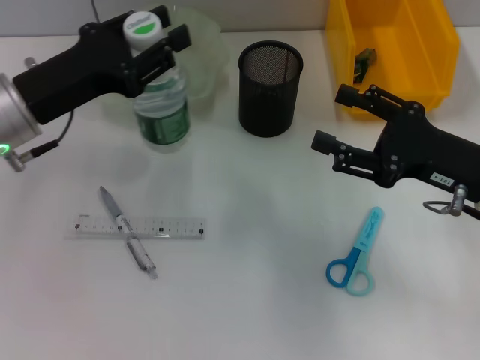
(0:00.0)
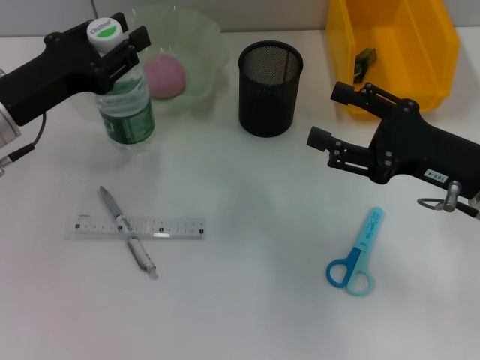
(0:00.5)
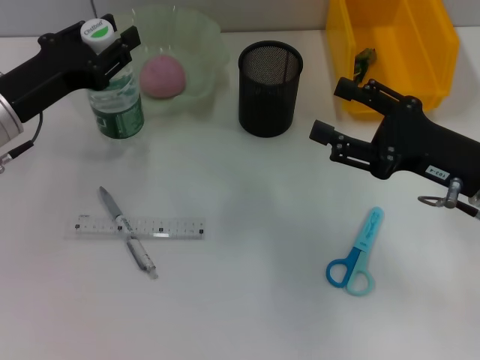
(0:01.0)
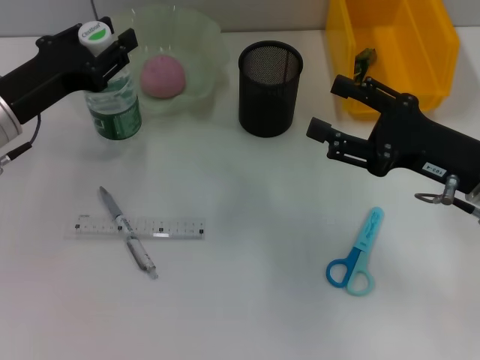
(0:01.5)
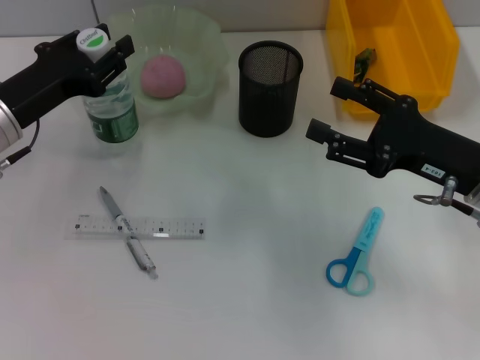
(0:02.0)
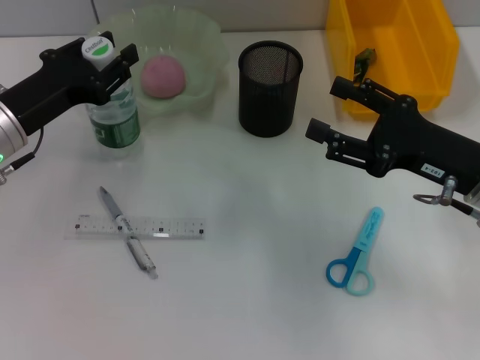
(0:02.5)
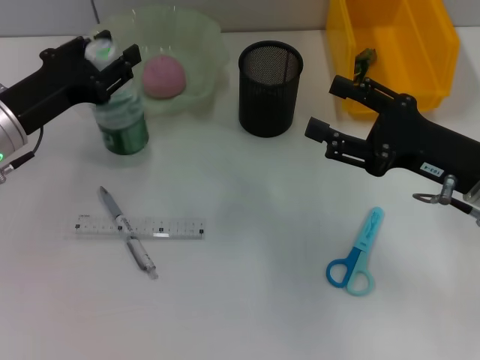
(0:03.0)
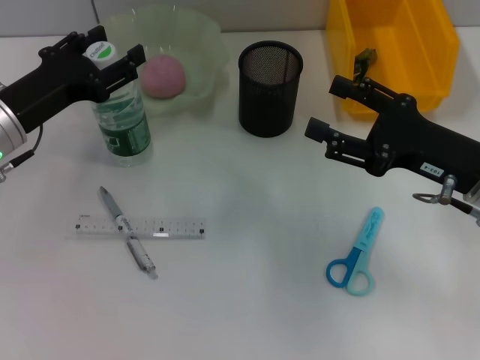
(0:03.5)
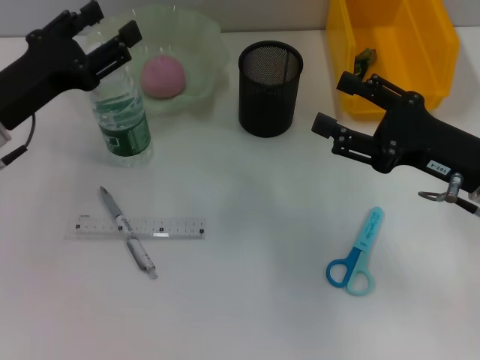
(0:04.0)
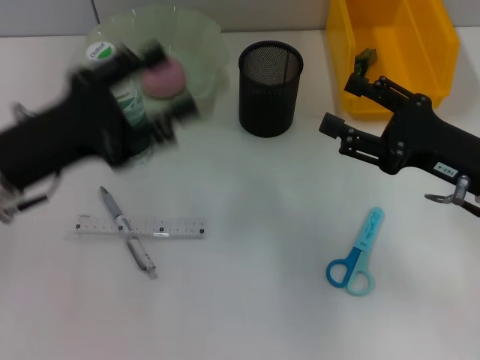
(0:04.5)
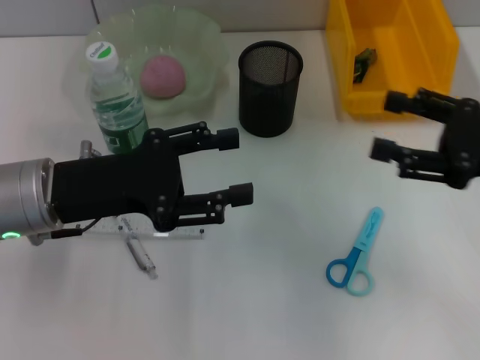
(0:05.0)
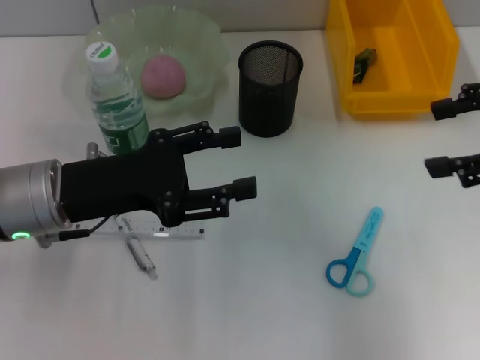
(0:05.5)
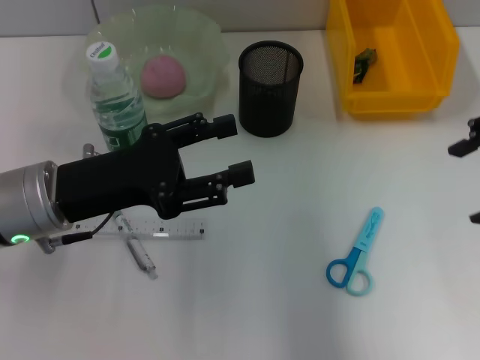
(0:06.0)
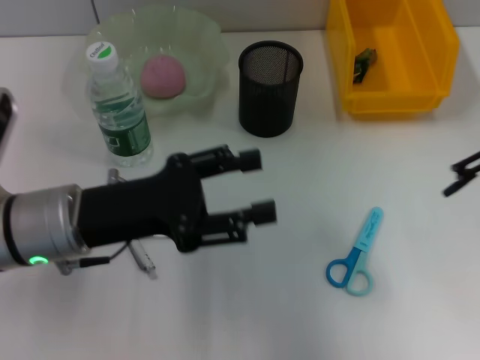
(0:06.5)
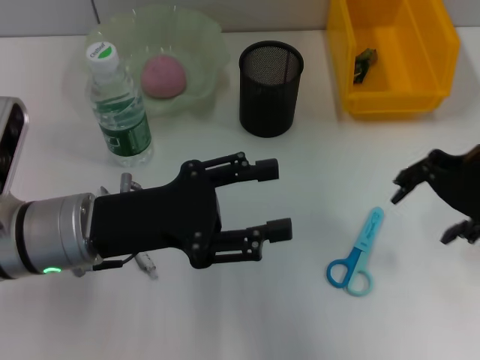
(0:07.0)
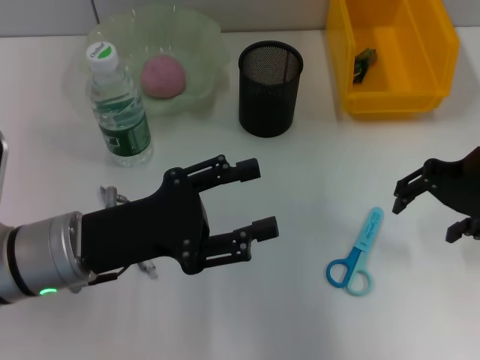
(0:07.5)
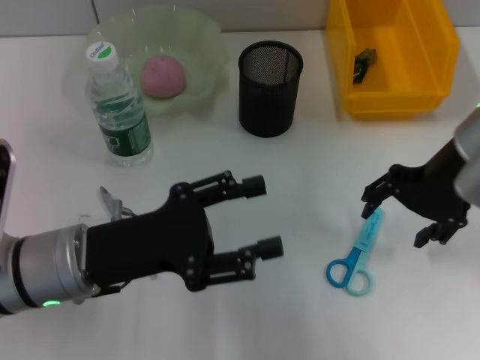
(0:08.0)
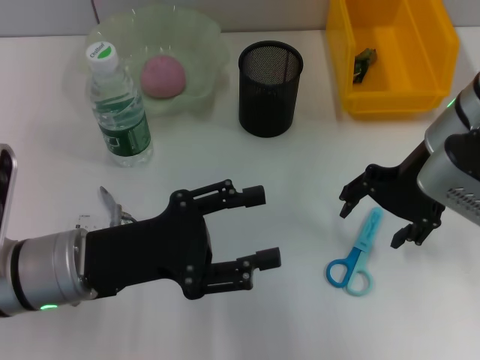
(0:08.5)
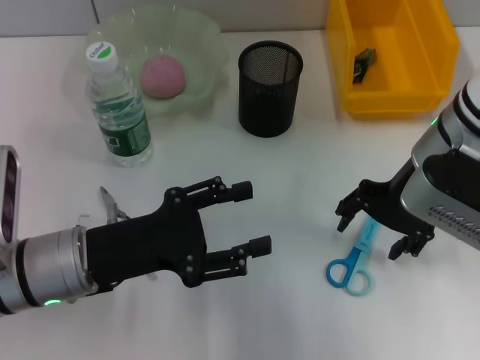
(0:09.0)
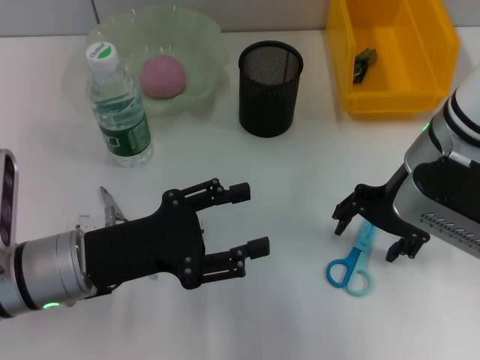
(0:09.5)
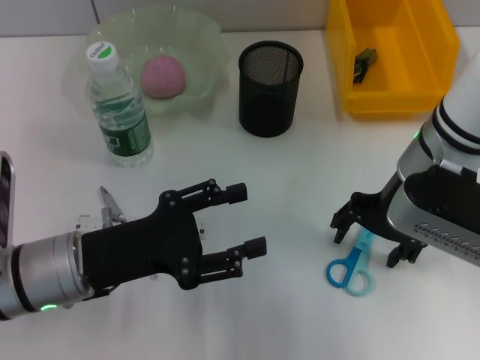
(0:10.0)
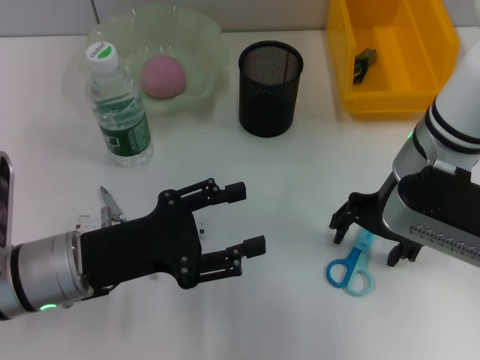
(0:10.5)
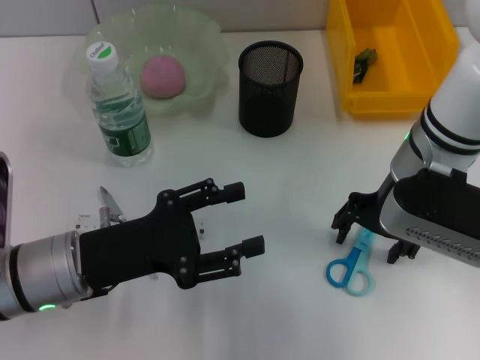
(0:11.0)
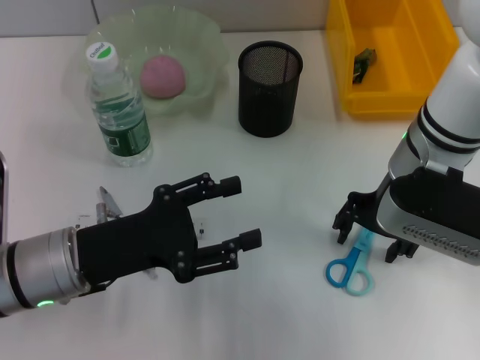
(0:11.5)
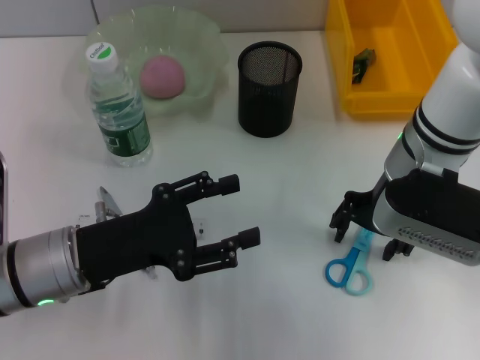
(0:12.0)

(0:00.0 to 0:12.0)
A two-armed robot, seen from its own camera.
Step, 0:00.0 - 0:03.0: Place the water bottle on the table with the left hand.
0:00.0 - 0:02.0: The grippers move only a little.
0:02.0 - 0:04.0: The left gripper opens its fingers.
0:04.0 - 0:06.0: The right gripper goes some 20 cm upward. The left gripper shifts roughly 5 cm to the right.
0:06.0 - 0:08.0: The right gripper goes about 15 cm downward and to the left. The left gripper shifts by about 5 cm.
0:08.0 - 0:10.0: The right gripper changes place by roughly 5 cm.
0:10.0 - 0:12.0: Both grippers stay about where they are.

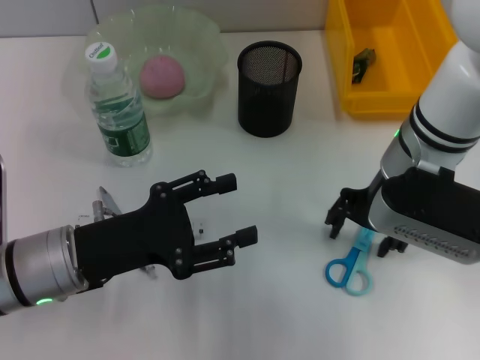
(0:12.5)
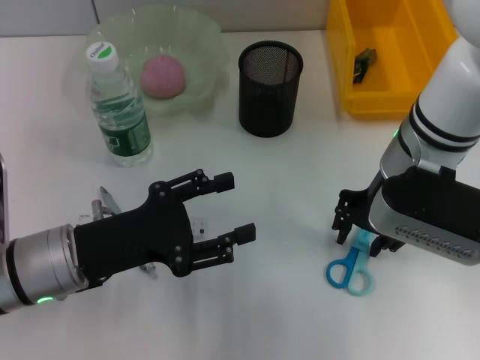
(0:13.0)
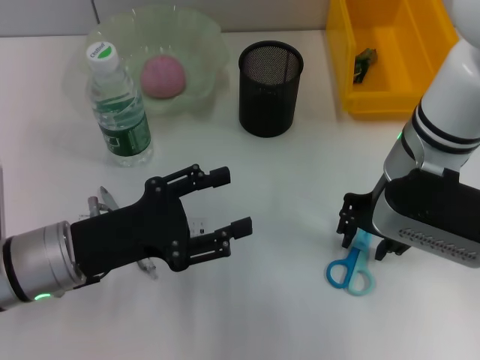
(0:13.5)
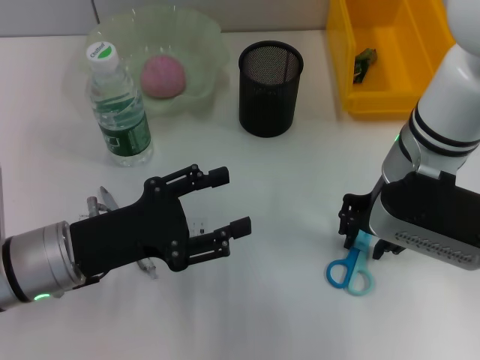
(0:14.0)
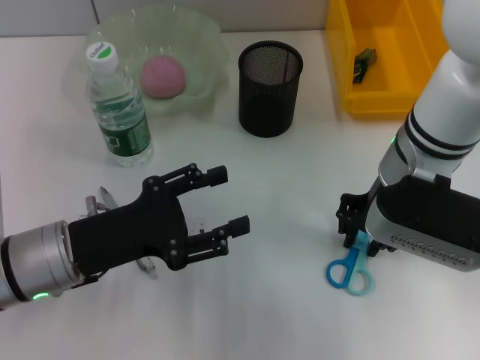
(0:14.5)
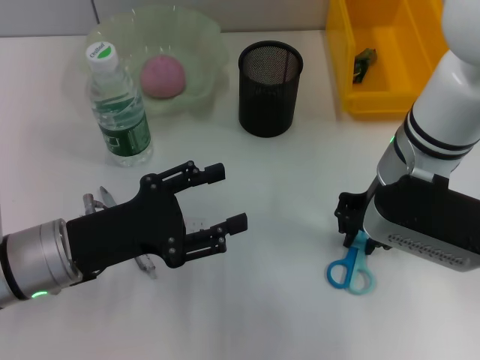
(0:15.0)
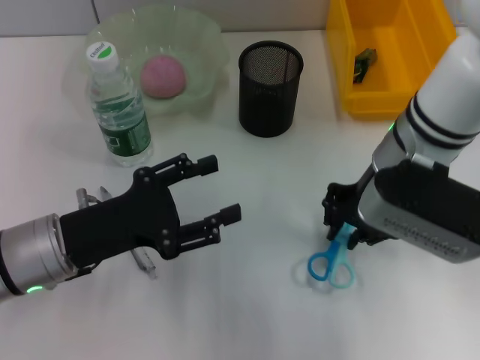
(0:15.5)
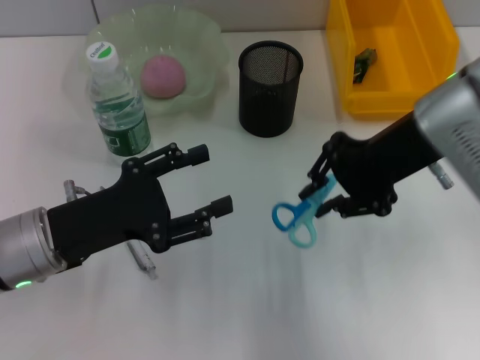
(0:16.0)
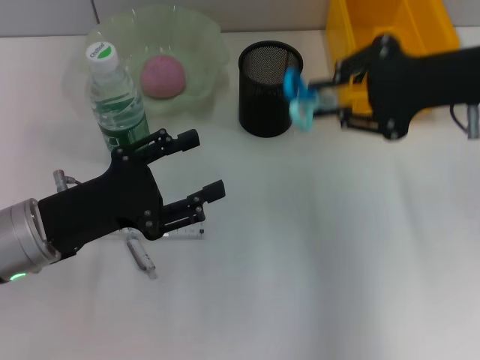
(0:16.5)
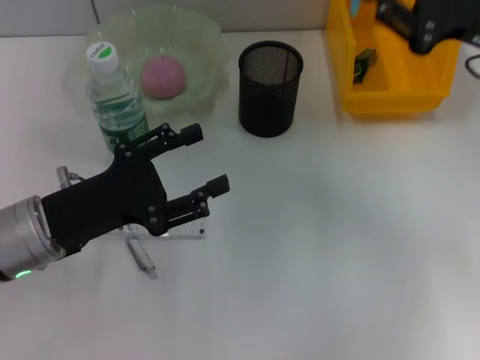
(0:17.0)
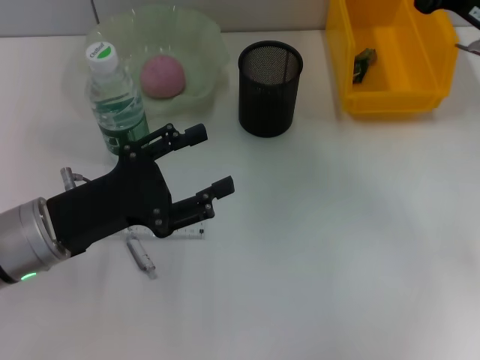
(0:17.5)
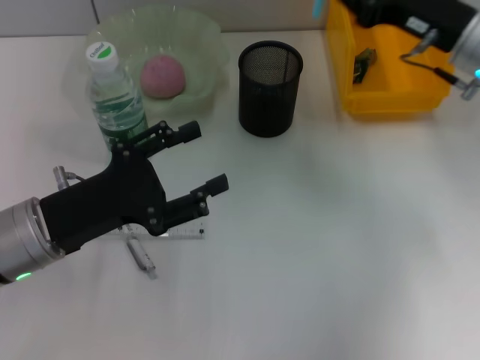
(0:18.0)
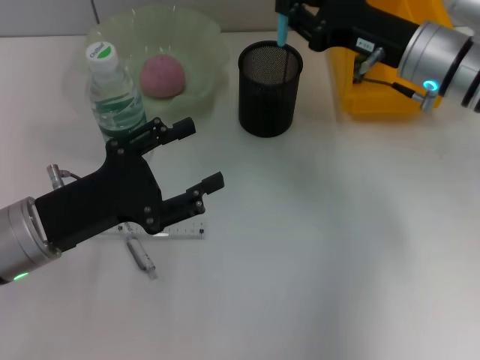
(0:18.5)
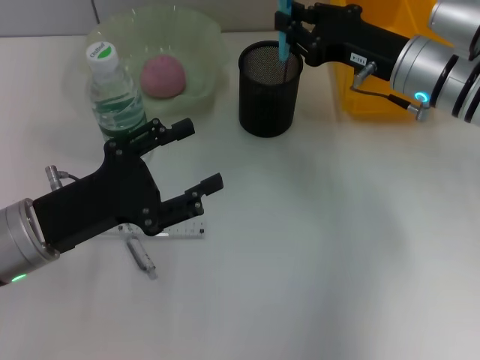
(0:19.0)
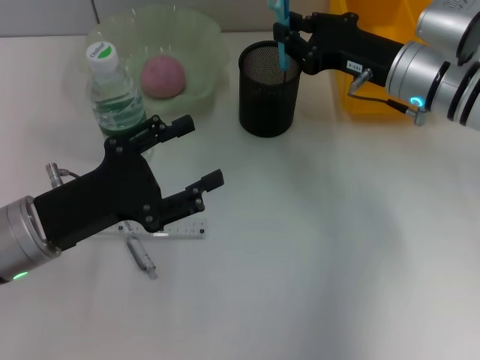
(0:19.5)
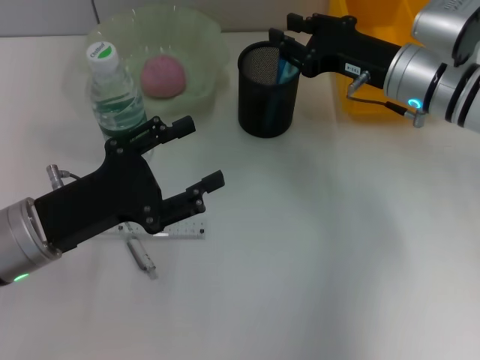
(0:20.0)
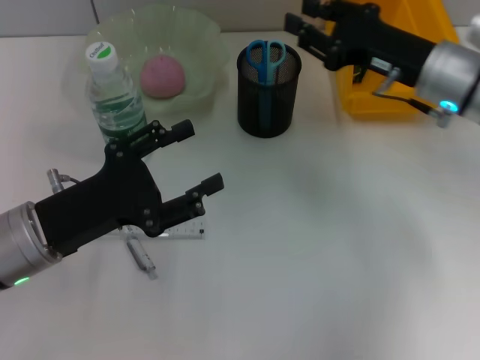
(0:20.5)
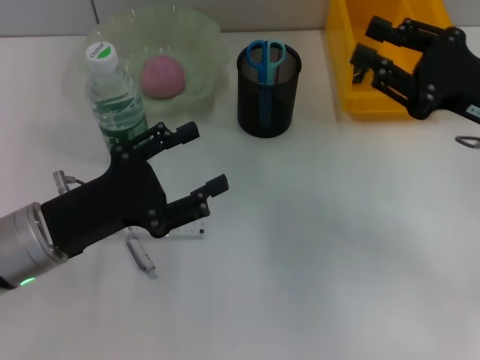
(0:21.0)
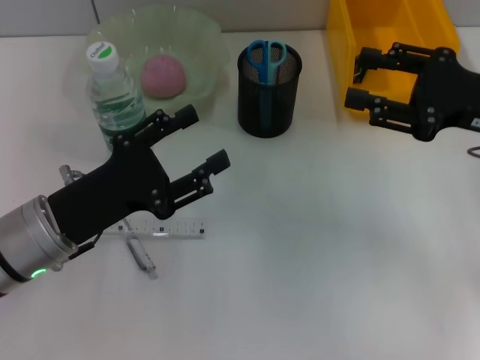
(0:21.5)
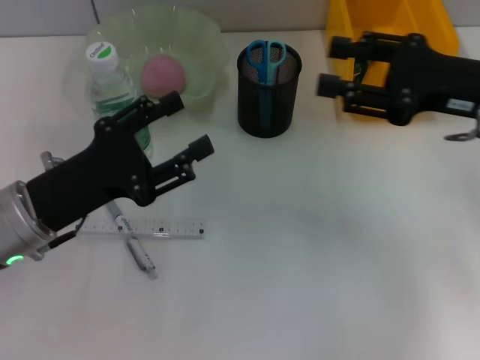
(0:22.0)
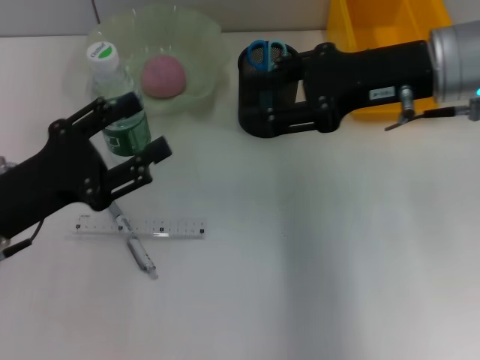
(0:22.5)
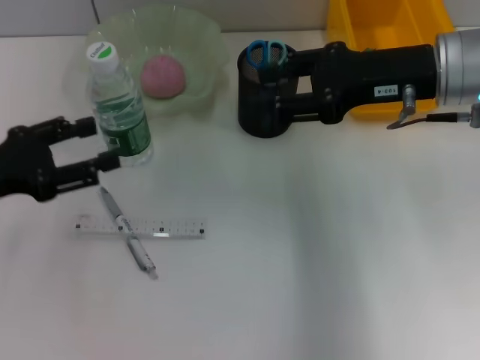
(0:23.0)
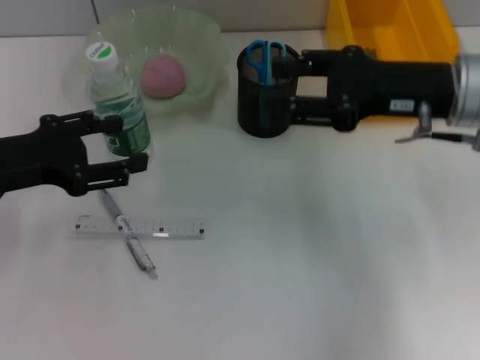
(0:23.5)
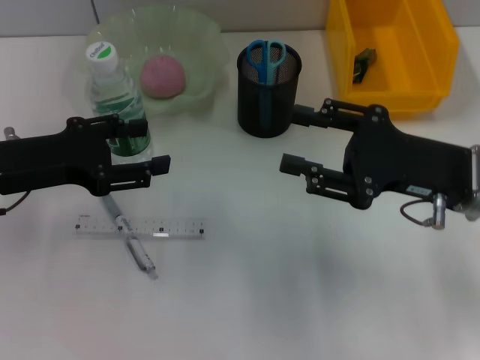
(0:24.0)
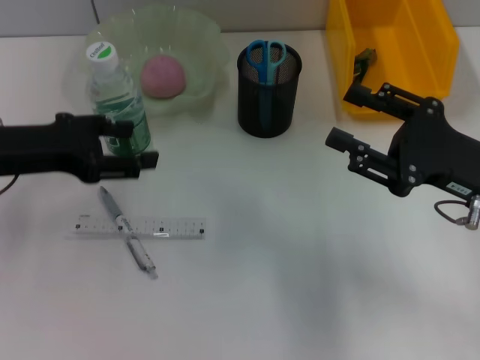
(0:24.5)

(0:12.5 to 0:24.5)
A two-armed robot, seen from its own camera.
Step, 0:12.5 - 0:14.5: Grab the blue scissors with the right hand.
Step, 0:15.0 - 0:20.0: Place the blue scissors into the pen holder with the right hand.
0:12.5 - 0:14.5: The right gripper closes up.
0:14.5 - 0:16.5: The right gripper is displaced to the right and upward by approximately 10 cm.
0:16.5 - 0:18.5: The right gripper goes roughly 10 cm downward and forward.
0:18.5 - 0:20.5: The grippers move only a little.
0:20.5 - 0:22.5: The right gripper heads upward, covering roughly 10 cm, and goes to the right and returns, about 5 cm each way.
0:22.5 - 0:24.5: The right gripper moves downward, backward and to the right, approximately 15 cm; the left gripper travels upward and forward by about 10 cm.

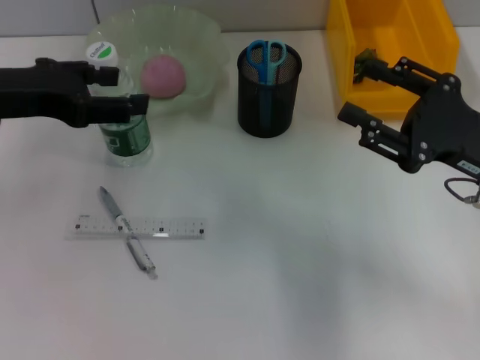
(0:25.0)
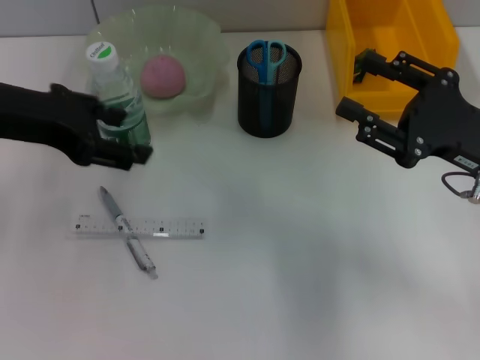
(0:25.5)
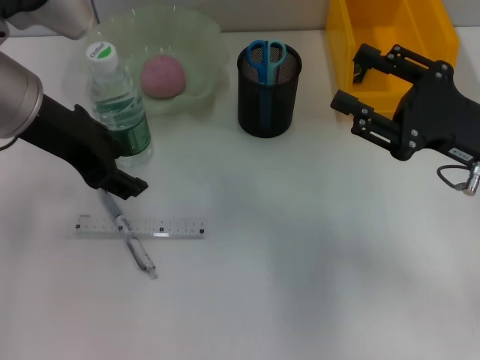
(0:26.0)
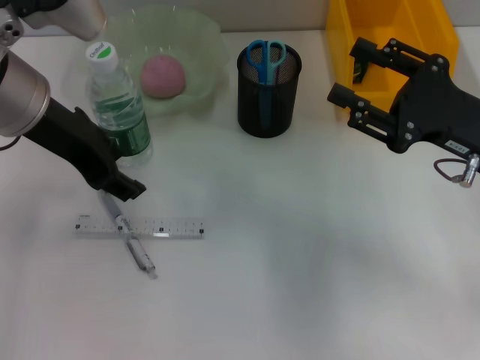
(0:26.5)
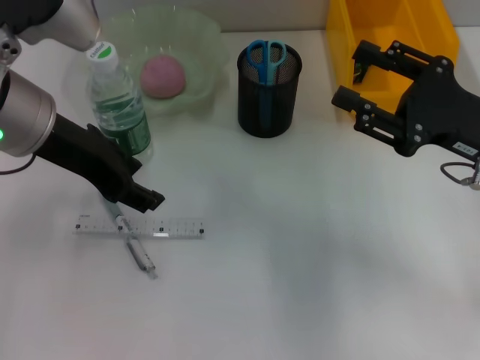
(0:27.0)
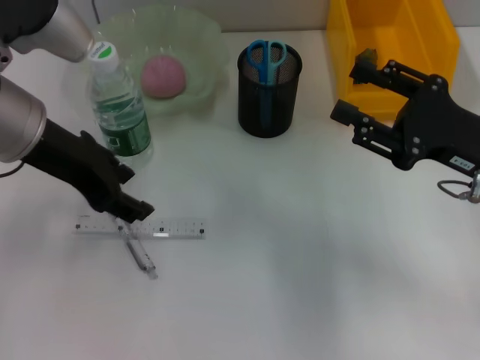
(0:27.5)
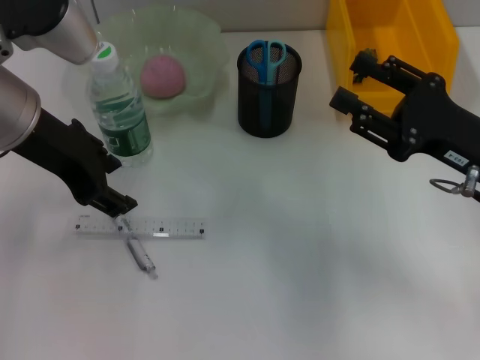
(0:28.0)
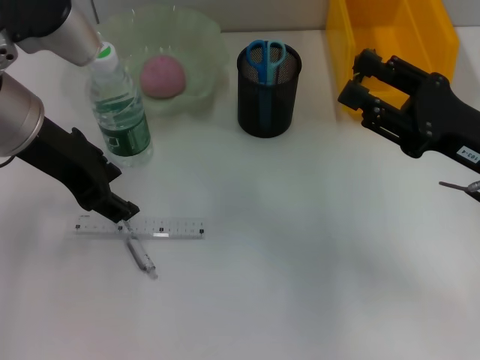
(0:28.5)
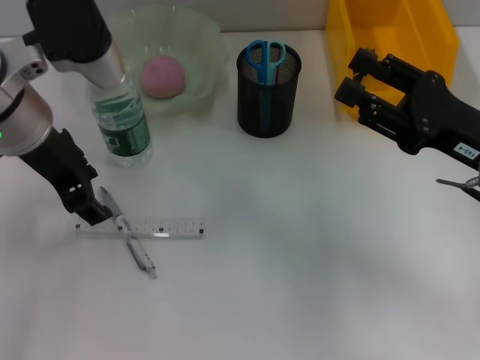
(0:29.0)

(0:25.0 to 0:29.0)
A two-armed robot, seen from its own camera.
0:25.0 - 0:27.0: The left gripper is displaced to the right by approximately 5 cm.
